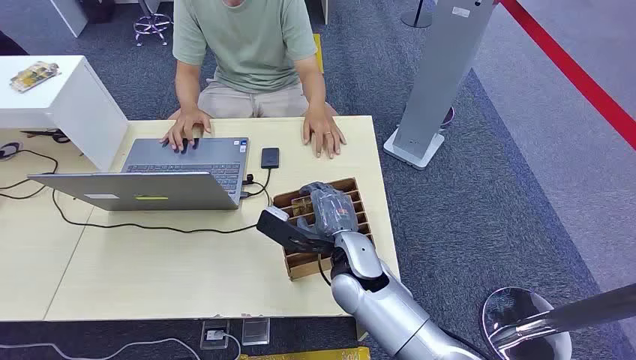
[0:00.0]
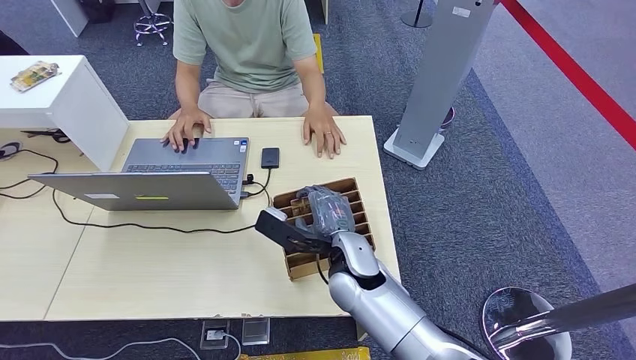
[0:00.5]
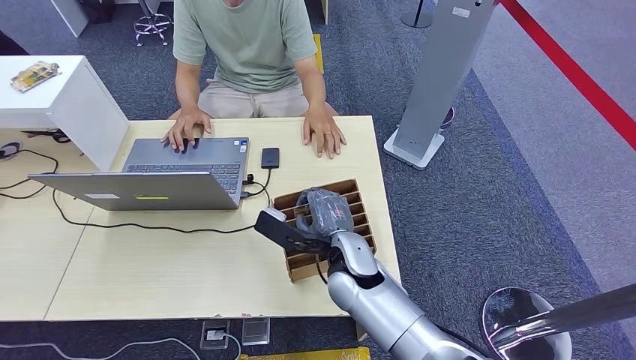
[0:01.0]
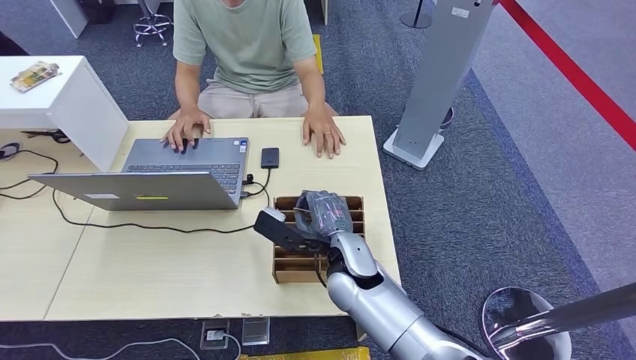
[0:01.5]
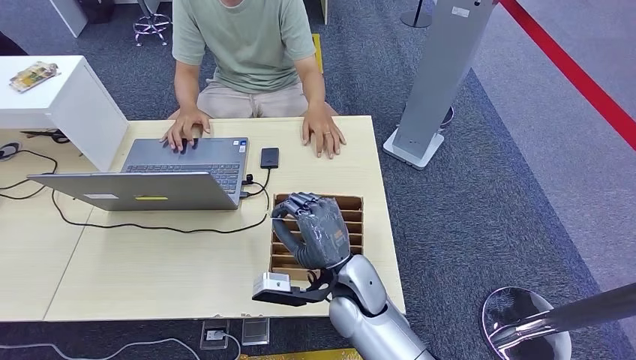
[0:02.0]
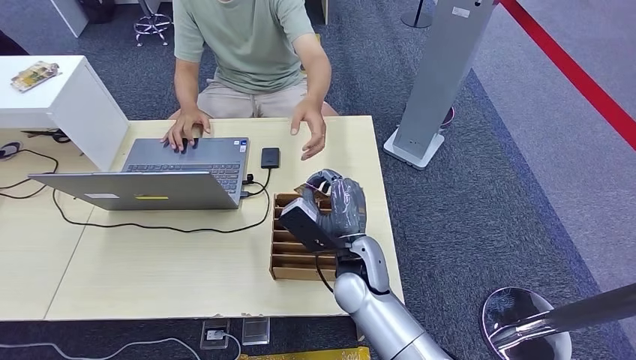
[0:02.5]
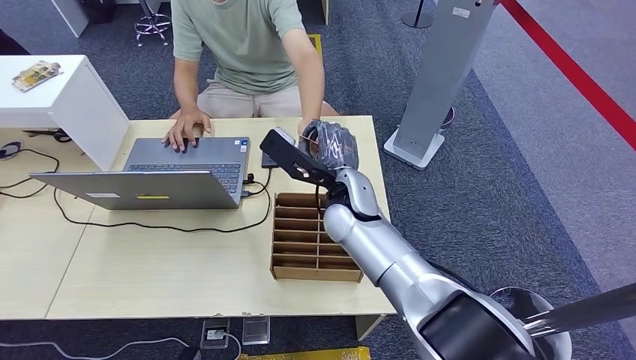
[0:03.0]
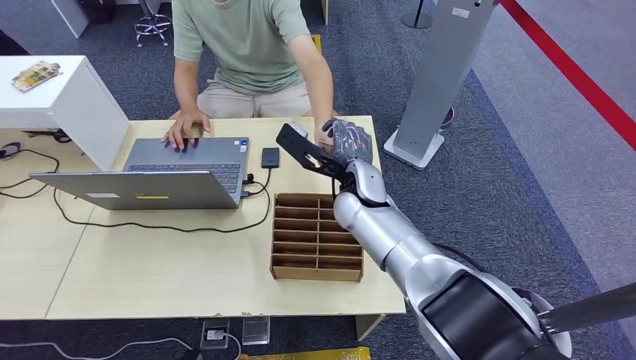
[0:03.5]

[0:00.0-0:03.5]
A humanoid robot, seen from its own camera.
Step, 0:00.0 to 0:01.5: Pick up the room card from the card holder.
Step, 0:03.0 to 0:03.5: Hand the room card to the target.
0:02.0 to 0:03.5: The right hand goes roughly 15 cm forward and upward.
